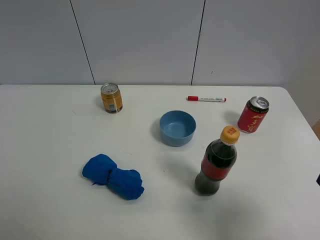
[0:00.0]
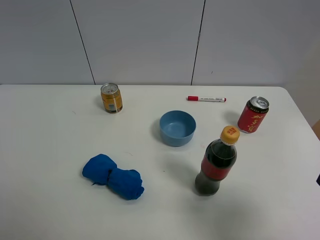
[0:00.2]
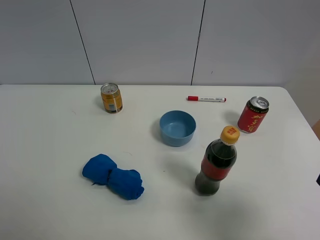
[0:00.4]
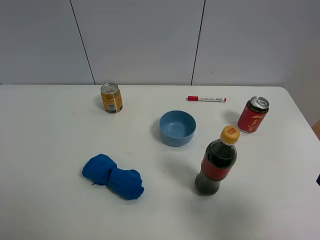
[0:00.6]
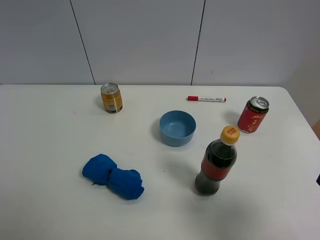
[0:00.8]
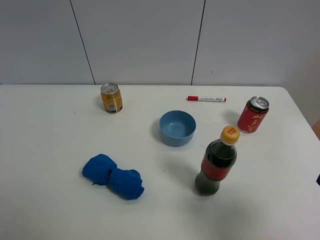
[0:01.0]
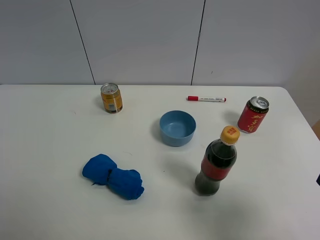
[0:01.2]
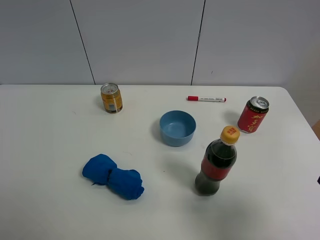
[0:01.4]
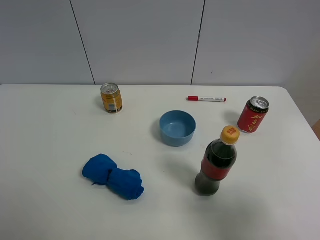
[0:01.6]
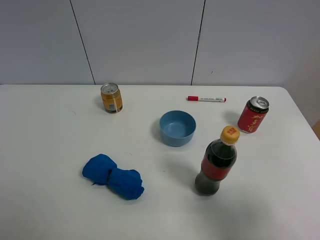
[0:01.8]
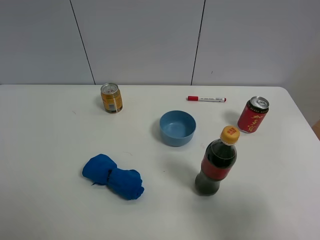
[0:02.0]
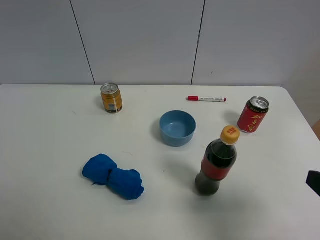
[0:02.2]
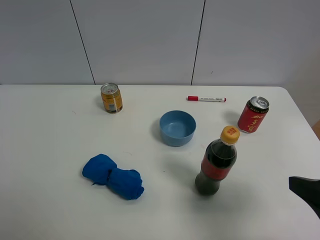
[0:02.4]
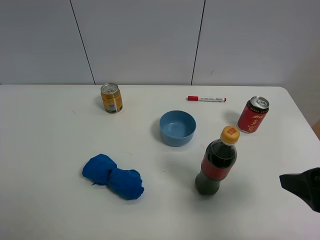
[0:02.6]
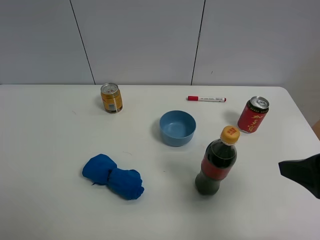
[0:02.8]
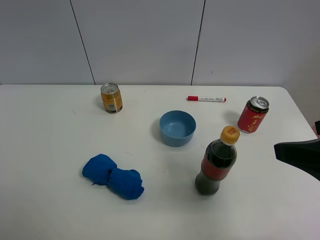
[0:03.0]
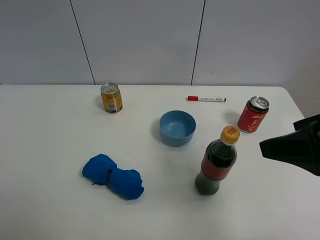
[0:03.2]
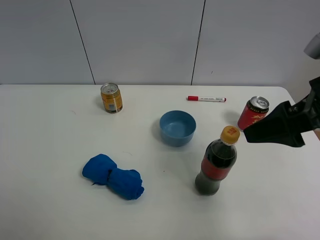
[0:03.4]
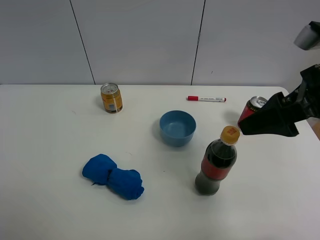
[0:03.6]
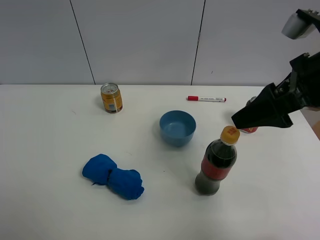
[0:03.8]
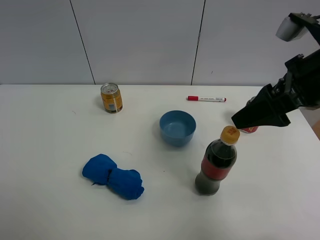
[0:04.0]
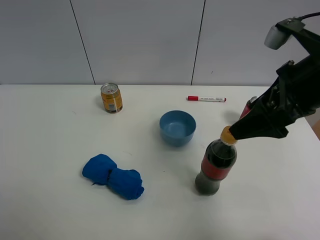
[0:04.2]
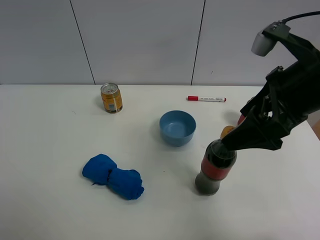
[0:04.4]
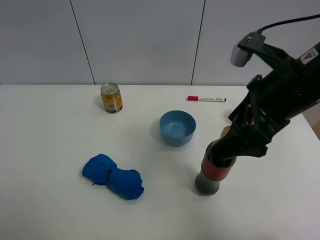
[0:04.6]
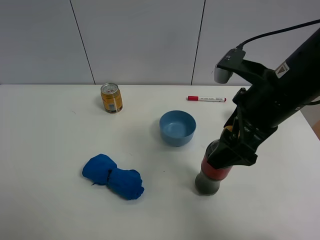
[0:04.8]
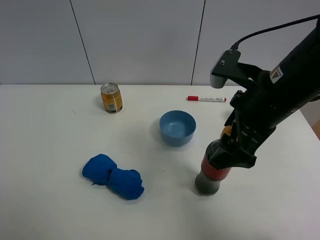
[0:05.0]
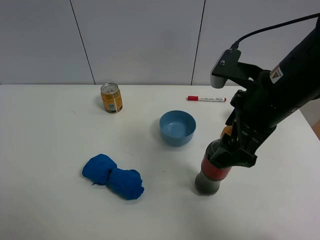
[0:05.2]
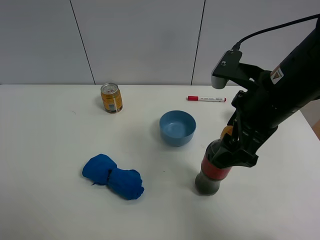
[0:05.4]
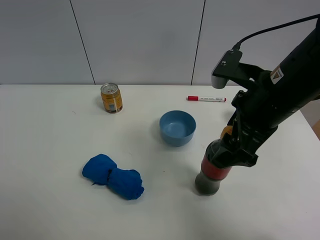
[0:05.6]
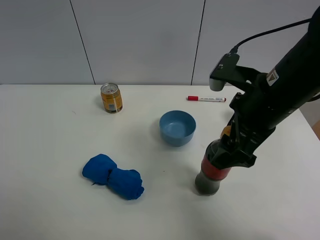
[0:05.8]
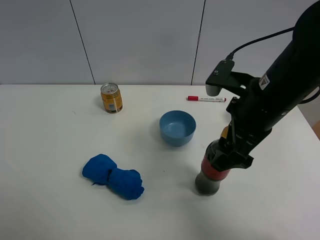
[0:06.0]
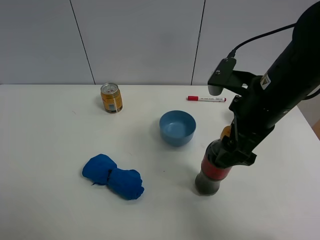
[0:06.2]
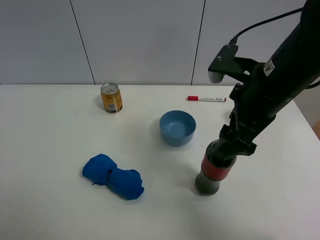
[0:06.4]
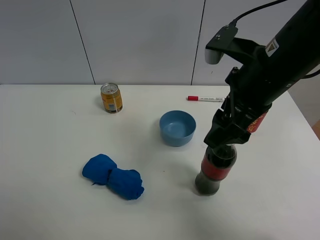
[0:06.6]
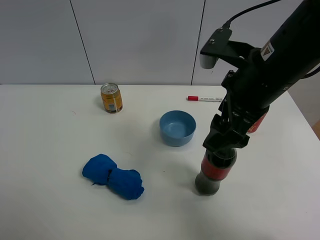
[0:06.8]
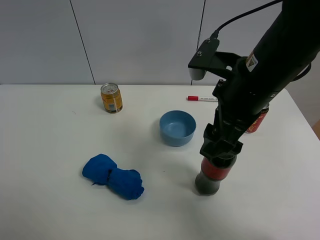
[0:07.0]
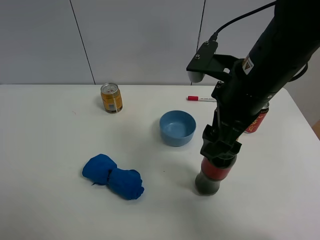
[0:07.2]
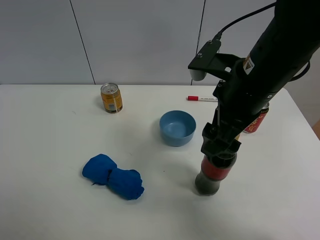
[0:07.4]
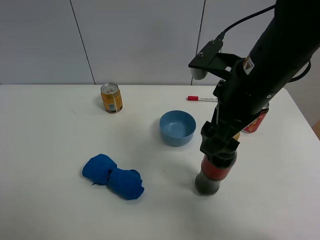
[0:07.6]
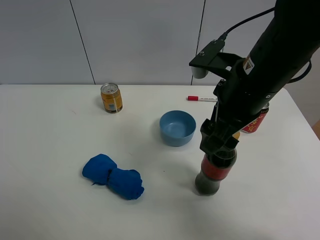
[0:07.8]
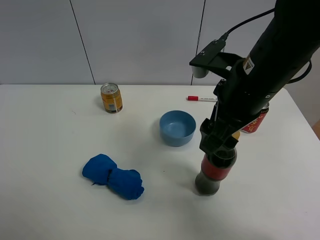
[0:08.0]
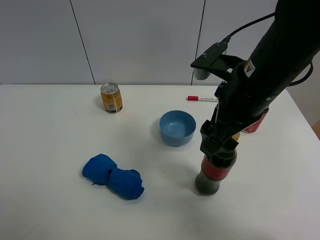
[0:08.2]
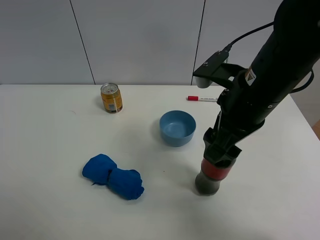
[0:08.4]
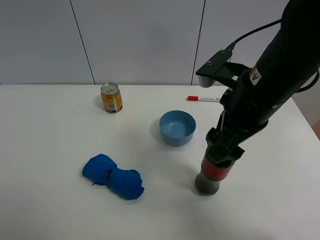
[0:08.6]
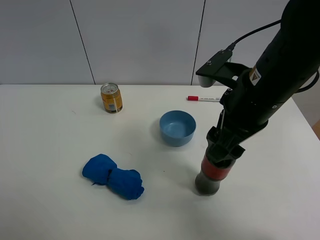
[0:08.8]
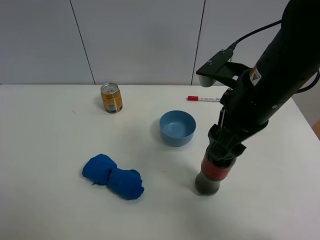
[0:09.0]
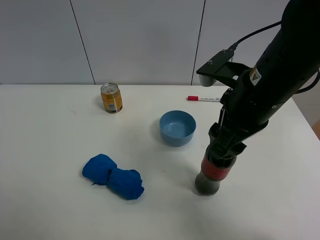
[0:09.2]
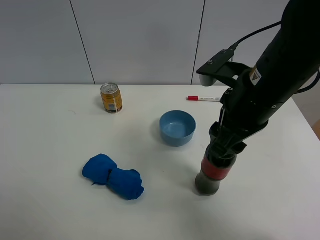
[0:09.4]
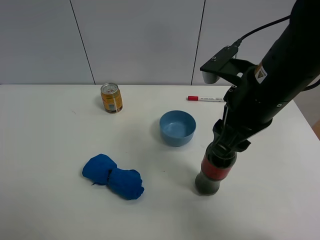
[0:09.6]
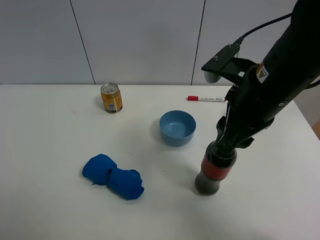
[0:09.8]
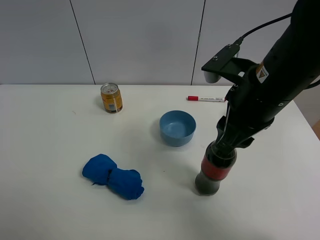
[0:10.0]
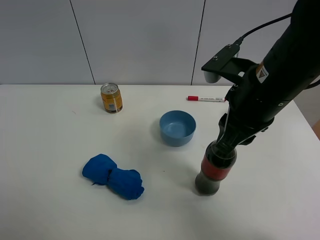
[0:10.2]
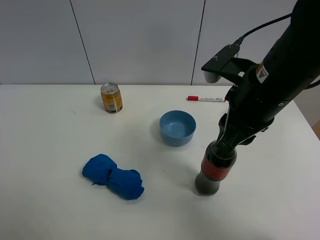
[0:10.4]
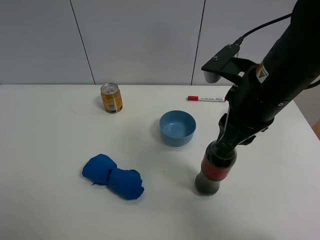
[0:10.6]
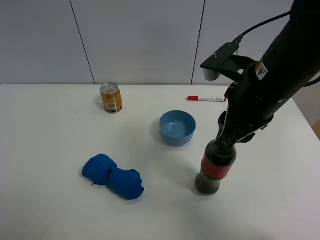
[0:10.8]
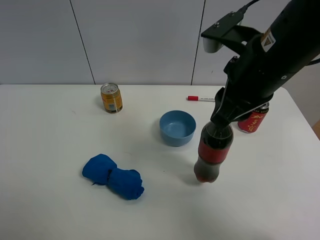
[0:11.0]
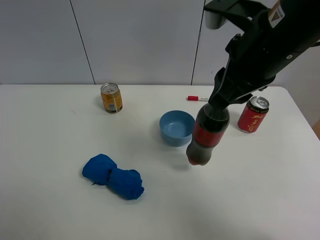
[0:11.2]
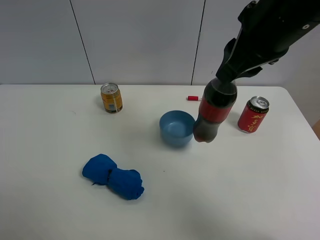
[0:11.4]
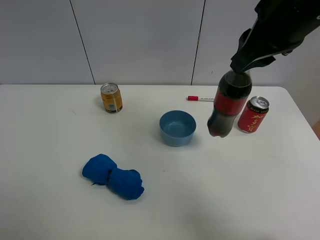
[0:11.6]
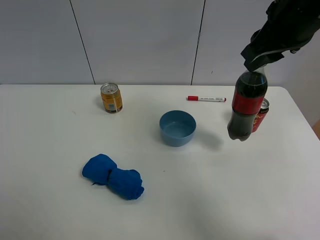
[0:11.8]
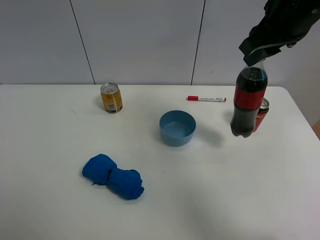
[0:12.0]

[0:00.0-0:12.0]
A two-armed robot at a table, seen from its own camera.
Task of the whole recording: the gripper move the object.
Step, 0:00.0 to 0:10.8: Grasp the coke with the right gripper.
0:01.6 to 0:03.0: The right gripper moves forward and upward, roughly 10 cm.
0:03.0 to 0:04.4: The right gripper shifts approximately 10 cm forward and to the left.
0:04.4 to 0:06.0: The right gripper shifts approximately 5 cm downward.
0:06.0 to 0:09.0: The grippers move only a little.
0:09.0 to 0:10.4: The right gripper closes.
0:10.4 to 0:12.0: The right gripper heads forward, upward and to the right, covering some 15 cm.

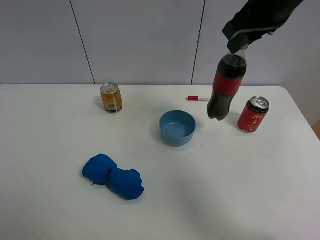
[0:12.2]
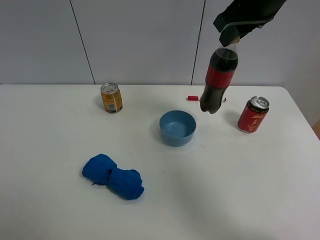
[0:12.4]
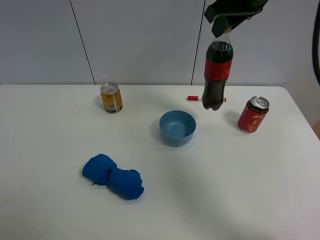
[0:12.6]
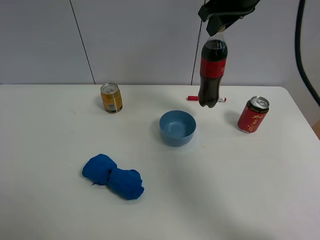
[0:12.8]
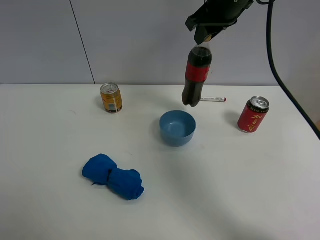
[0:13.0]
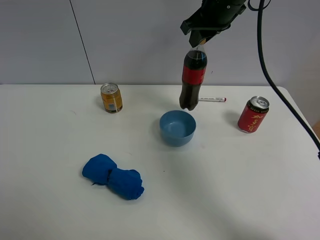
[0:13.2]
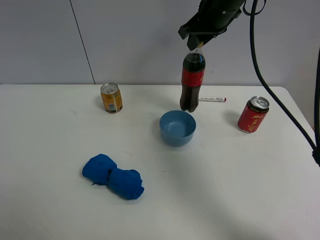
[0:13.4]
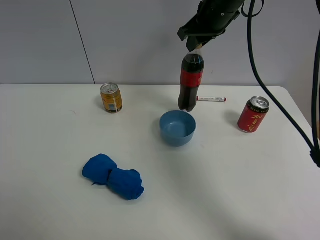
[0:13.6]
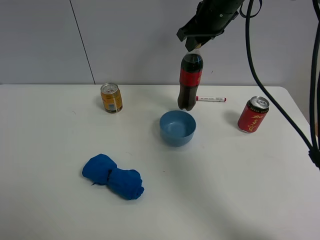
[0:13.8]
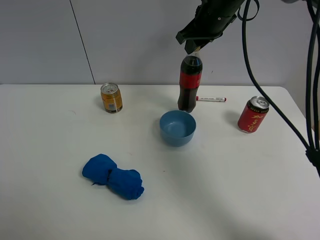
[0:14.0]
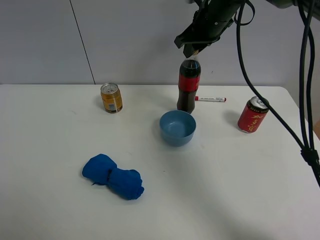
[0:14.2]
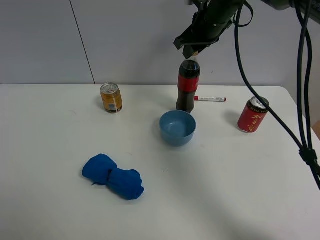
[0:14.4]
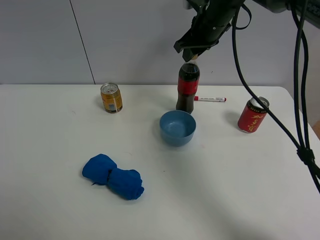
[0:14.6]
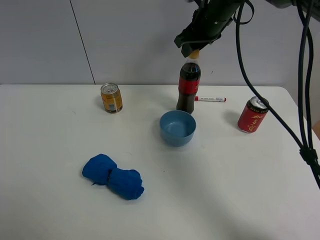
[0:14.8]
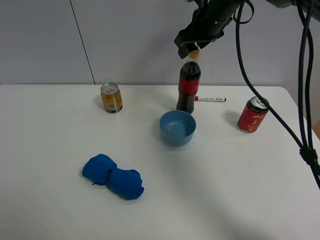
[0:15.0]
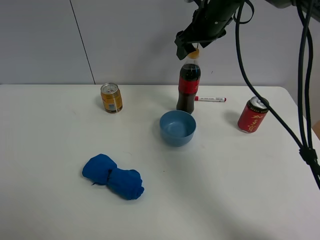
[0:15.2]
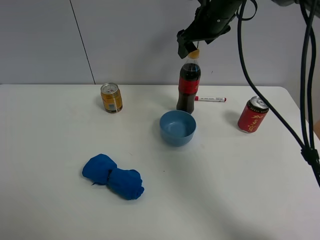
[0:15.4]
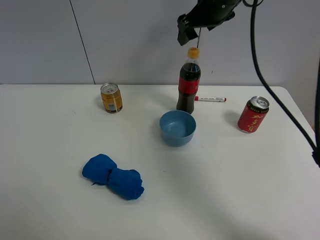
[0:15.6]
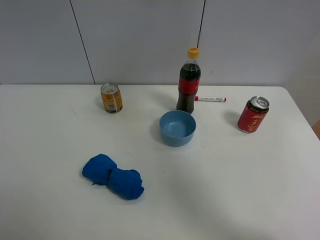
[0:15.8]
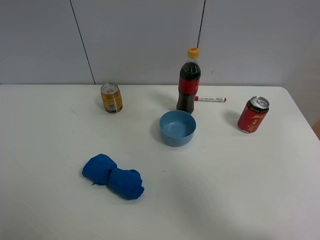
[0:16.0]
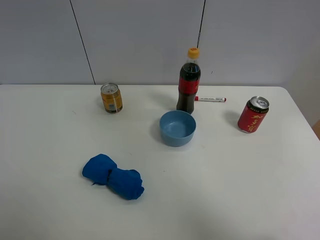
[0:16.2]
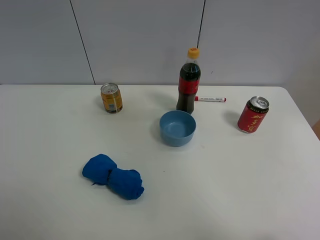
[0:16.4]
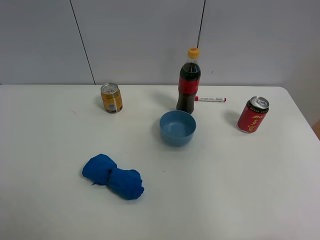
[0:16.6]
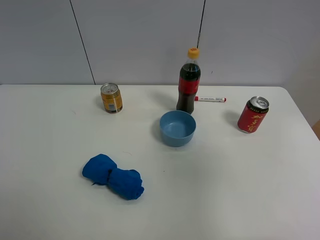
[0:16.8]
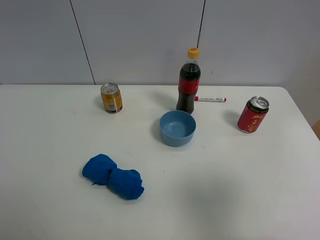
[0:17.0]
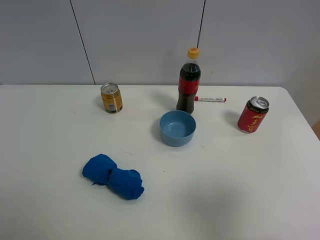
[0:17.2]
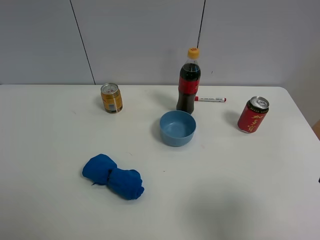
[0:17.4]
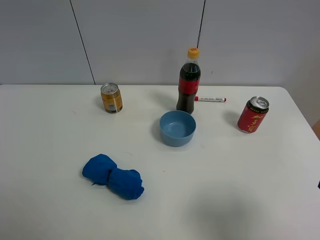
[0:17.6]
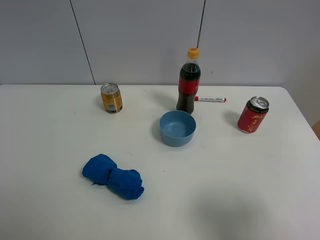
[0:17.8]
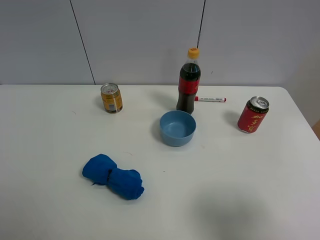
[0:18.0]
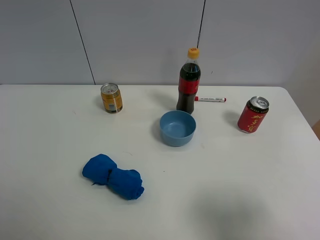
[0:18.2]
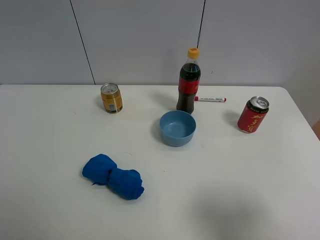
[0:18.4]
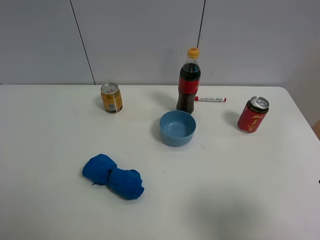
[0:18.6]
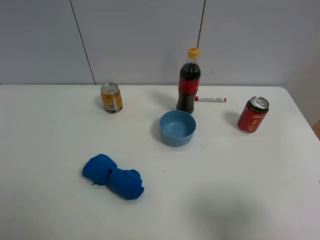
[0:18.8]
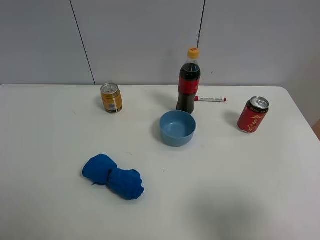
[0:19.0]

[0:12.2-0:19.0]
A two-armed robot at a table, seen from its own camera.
Task of the whole recording: the gripper move the object.
Step, 0:12.2 to 0:15.2: Place the coke on the table with the right gripper.
0:12.2 to 0:13.6: The right gripper goes about 10 cm forward and downward.
0:13.6 to 0:15.0: The right gripper opens.
0:15.0 to 0:16.2: The right gripper travels upward and backward by some 35 cm, and opens its fingers.
0:16.2 to 0:17.6: The right gripper shifts some 35 cm downward and backward.
0:17.6 to 0:19.0: Both grippers stay about where they are.

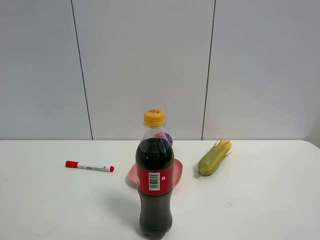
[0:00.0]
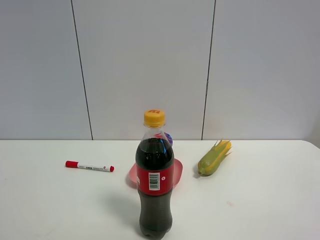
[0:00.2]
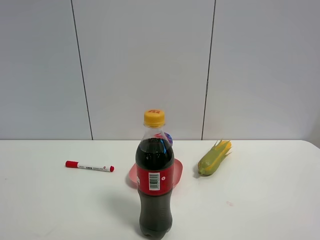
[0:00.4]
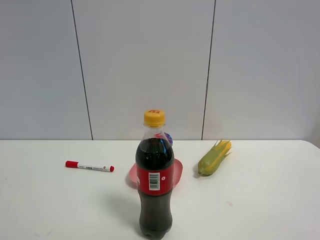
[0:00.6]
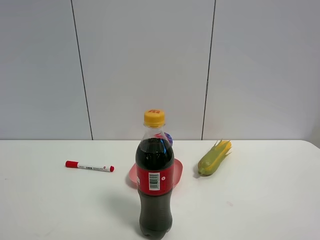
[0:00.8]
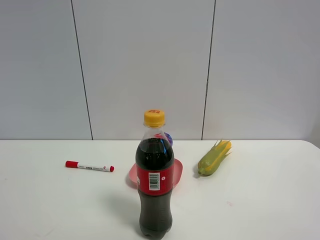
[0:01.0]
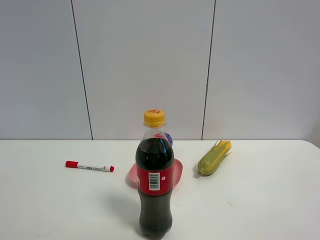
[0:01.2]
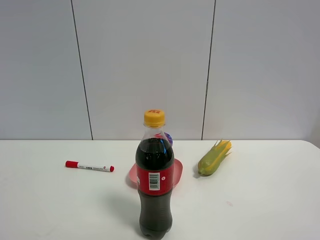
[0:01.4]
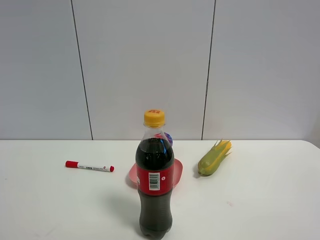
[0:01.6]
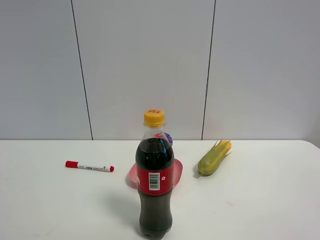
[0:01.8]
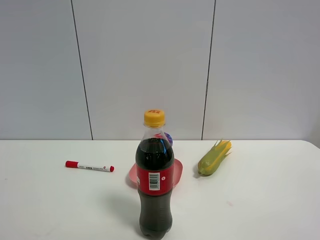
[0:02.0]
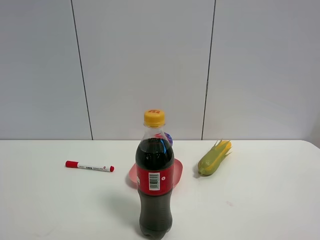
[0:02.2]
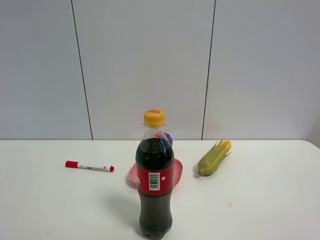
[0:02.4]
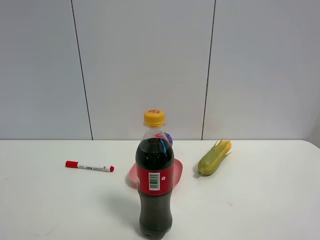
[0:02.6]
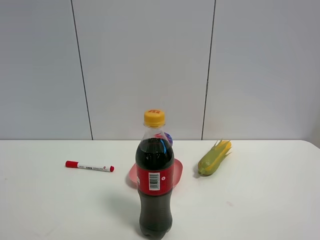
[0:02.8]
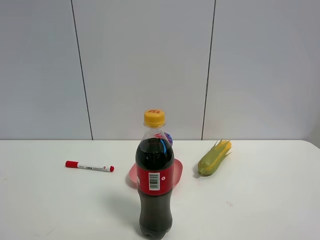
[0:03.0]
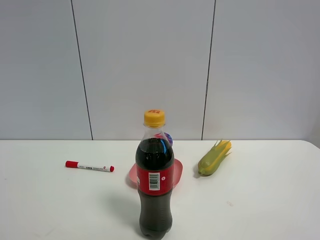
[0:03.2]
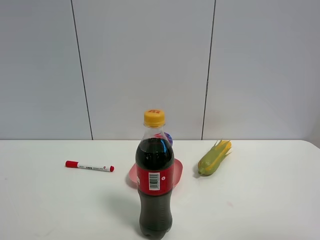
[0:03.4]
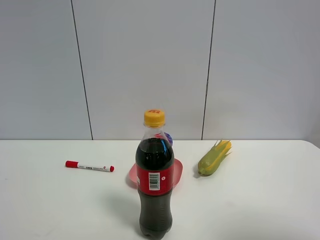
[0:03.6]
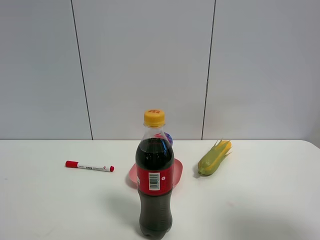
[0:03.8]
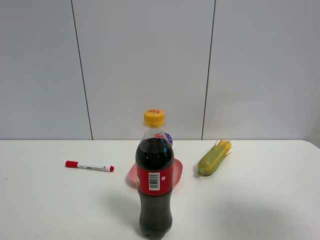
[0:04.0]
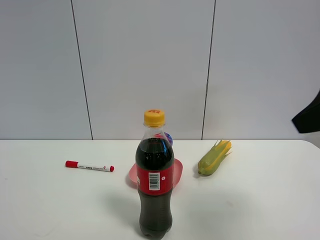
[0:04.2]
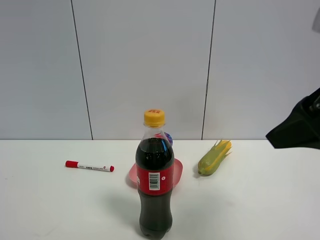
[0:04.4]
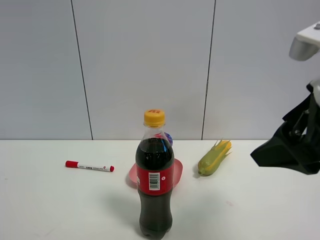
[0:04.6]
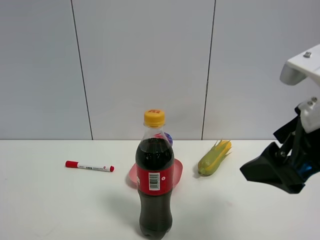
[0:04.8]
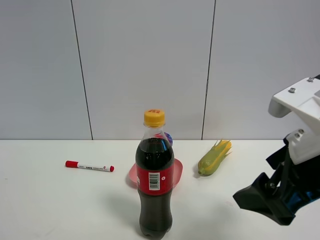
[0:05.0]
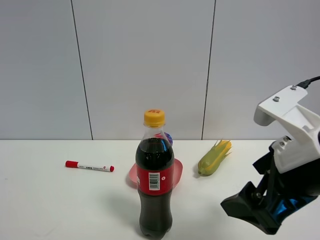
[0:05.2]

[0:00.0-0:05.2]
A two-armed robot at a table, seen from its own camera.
Task of the whole recording: the gripper move the object.
0:00.0 to 0:01.8: Both grippers stay put.
0:03.4 to 0:05.2: The right gripper travels forward, to the left and downward by approximately 20 cm.
